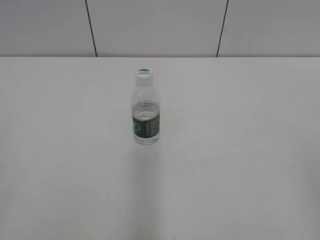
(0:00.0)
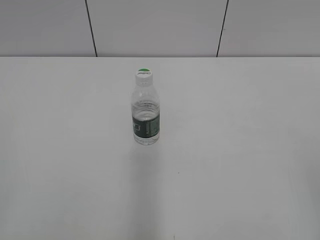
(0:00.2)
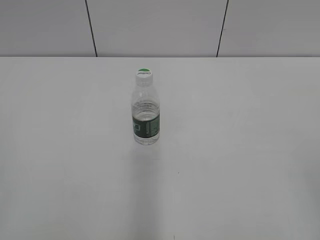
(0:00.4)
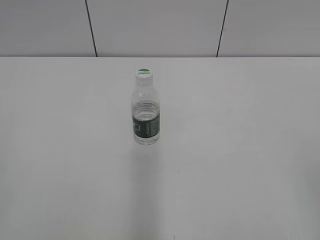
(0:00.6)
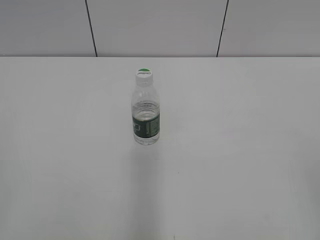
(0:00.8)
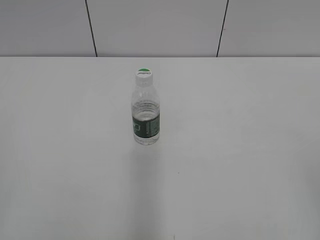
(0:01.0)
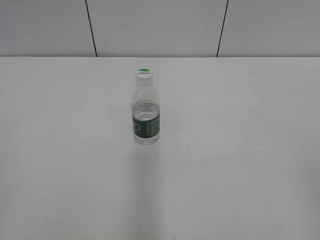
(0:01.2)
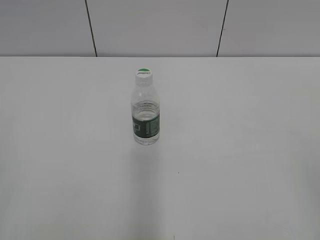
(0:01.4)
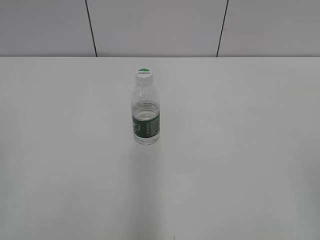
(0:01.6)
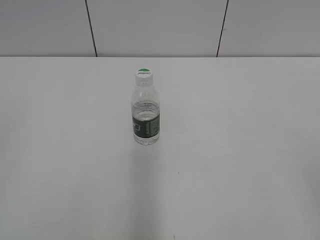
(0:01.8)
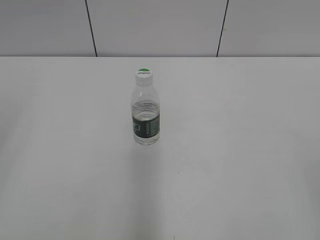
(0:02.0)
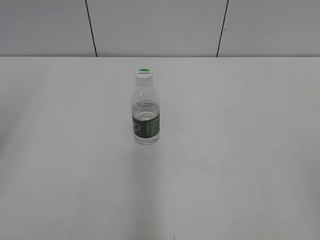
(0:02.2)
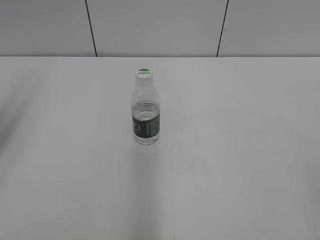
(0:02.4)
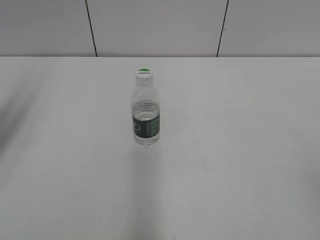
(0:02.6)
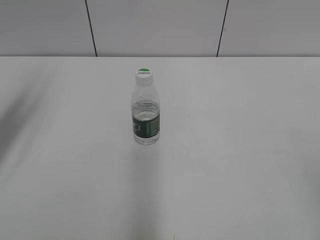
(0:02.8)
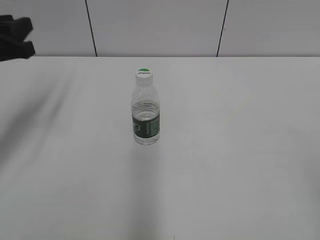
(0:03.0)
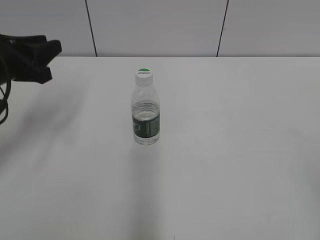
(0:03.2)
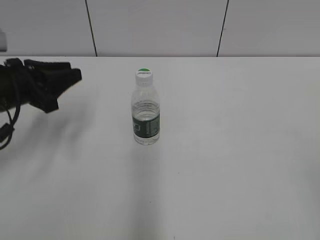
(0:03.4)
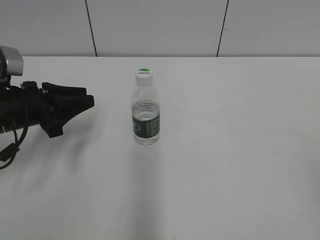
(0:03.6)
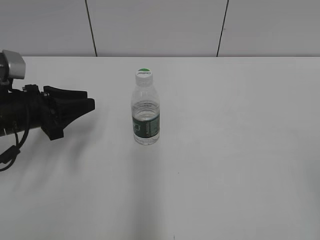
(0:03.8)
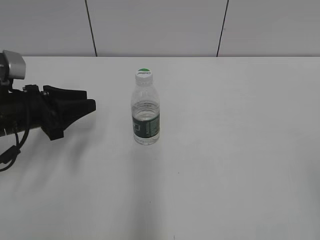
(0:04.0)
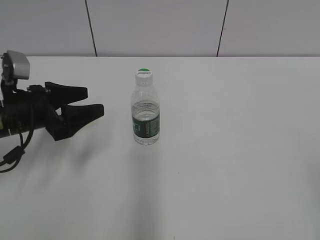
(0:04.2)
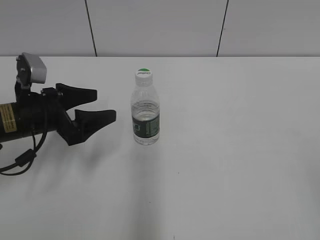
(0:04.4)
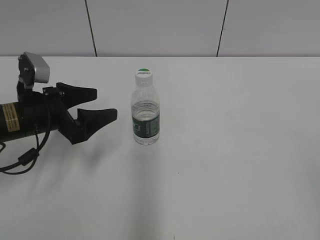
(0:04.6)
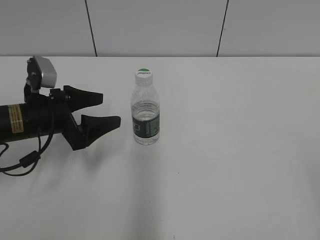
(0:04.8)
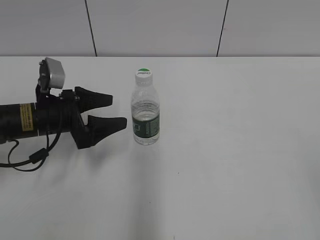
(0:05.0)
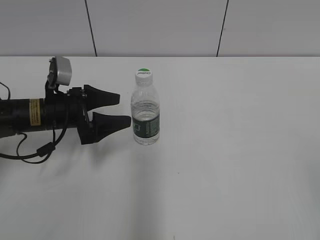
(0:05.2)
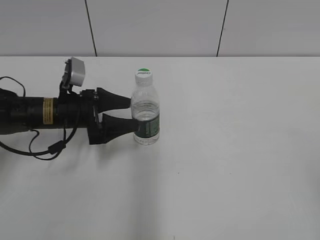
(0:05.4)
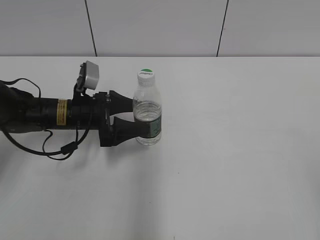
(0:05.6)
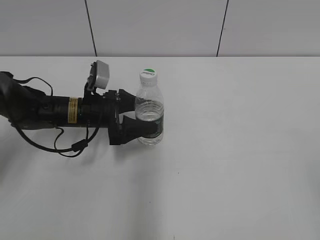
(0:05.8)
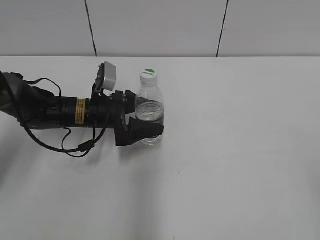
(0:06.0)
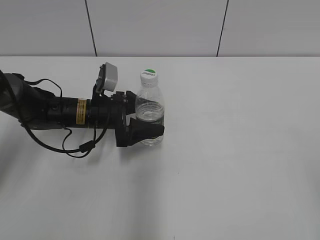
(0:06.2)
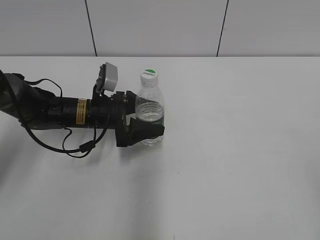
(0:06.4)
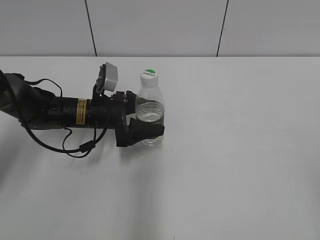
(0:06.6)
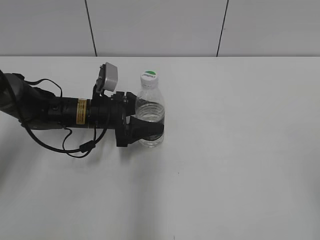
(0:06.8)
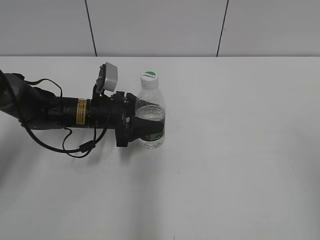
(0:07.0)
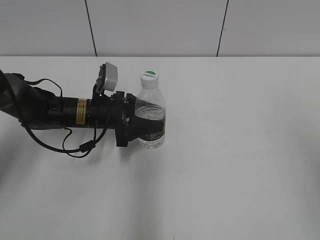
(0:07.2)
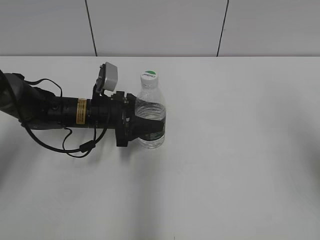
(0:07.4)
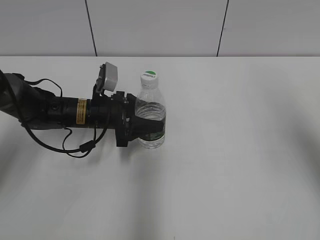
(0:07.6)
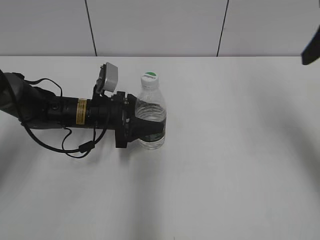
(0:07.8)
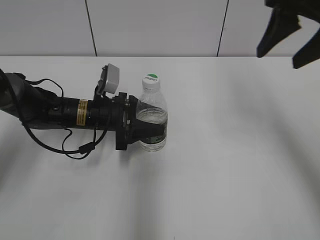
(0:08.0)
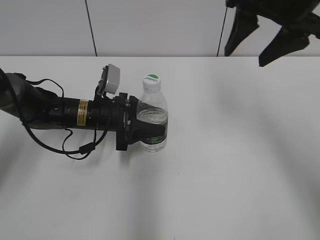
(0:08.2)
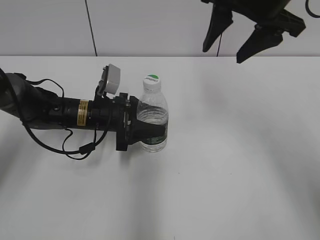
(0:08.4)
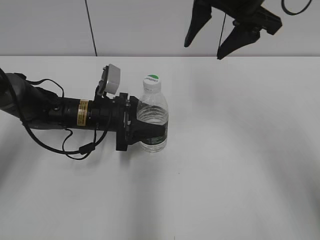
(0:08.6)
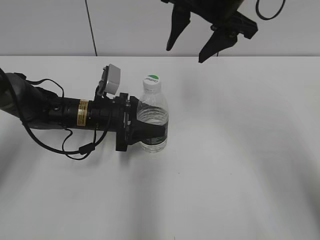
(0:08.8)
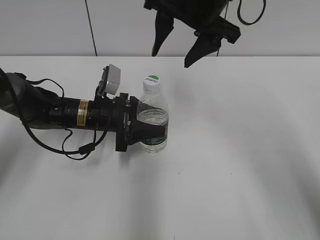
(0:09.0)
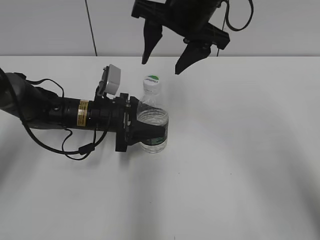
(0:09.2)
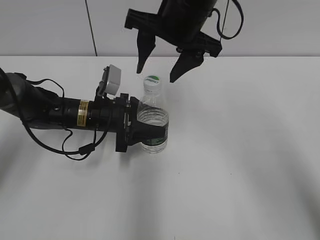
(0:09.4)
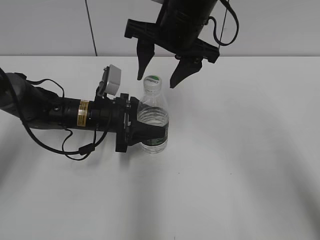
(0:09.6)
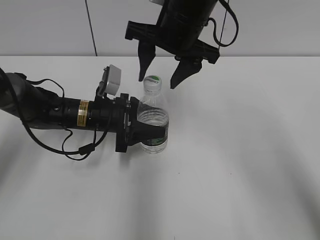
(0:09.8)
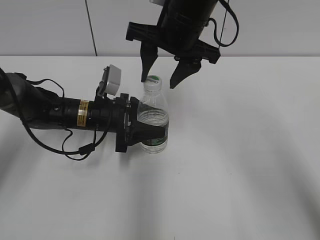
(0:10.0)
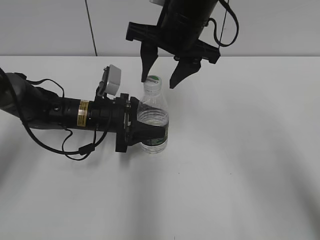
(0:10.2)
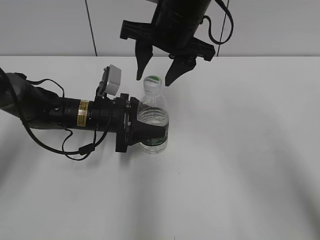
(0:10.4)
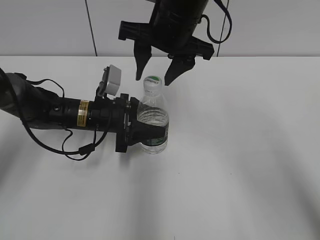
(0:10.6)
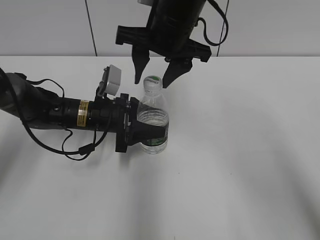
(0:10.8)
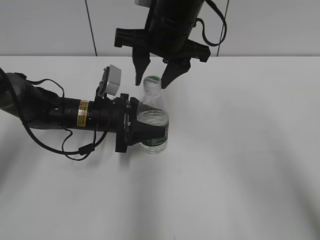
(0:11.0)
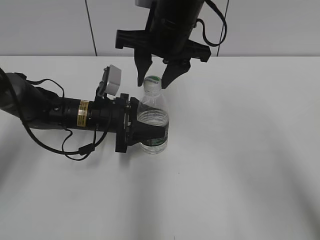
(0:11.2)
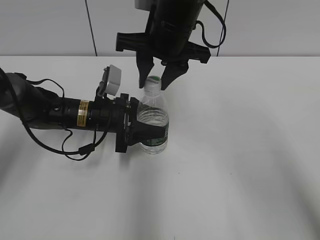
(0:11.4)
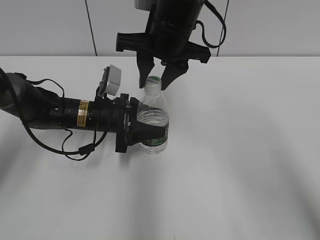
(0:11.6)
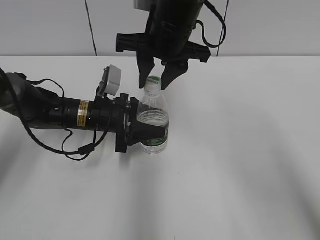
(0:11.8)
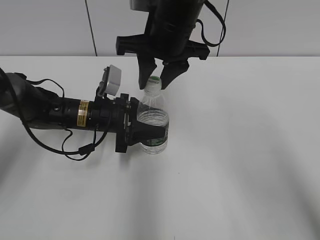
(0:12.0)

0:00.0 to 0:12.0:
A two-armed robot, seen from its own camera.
Step, 0:00.0 to 0:07.6: Grasp the bottle and move it to the center of the table with the left gripper.
0:01.6 to 0:03.0: The left gripper travels forward by roughly 30 cm.
0:03.0 to 0:04.4: The left gripper moves downward and to the right, about 10 cm, and opens its fingers.
0:04.4 to 0:06.0: The left gripper heads to the right, forward and downward, covering approximately 10 cm.
0:06.0 to 0:07.6: The right gripper goes about 20 cm forward; the left gripper closes.
0:07.6 to 0:09.0: The right gripper moves to the left and forward, some 25 cm.
0:09.0 to 0:10.4: The right gripper moves roughly 5 cm.
0:10.4 to 0:12.0: The right gripper closes.

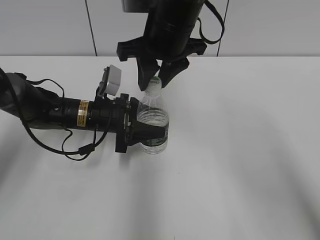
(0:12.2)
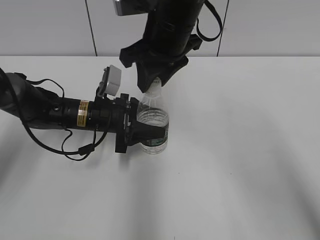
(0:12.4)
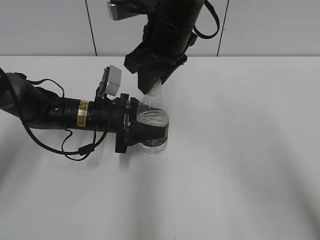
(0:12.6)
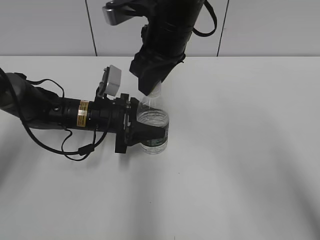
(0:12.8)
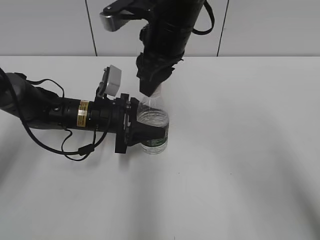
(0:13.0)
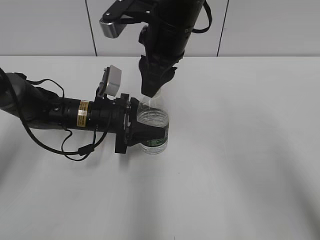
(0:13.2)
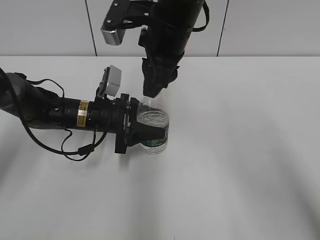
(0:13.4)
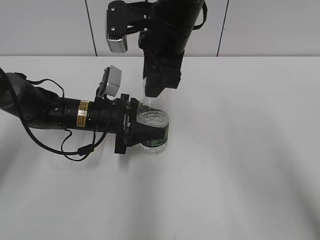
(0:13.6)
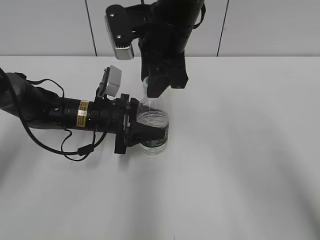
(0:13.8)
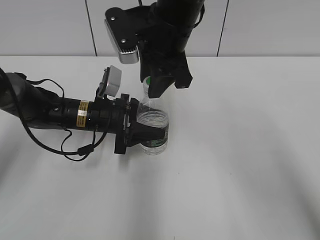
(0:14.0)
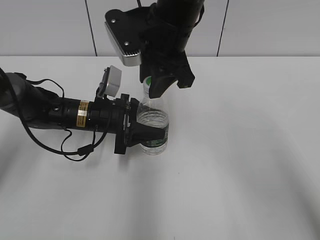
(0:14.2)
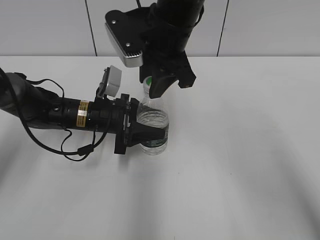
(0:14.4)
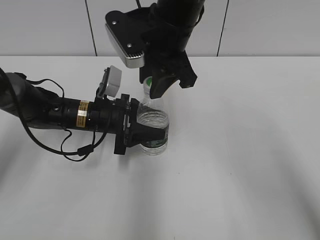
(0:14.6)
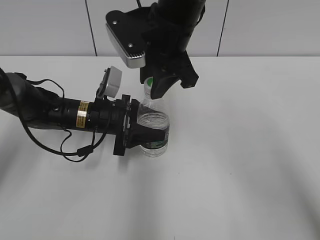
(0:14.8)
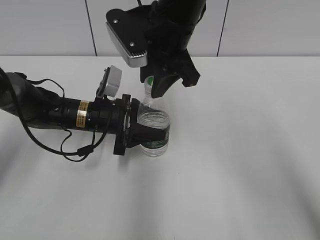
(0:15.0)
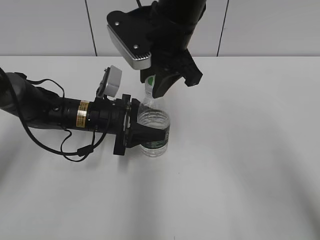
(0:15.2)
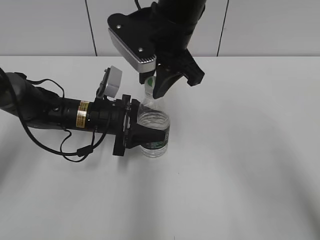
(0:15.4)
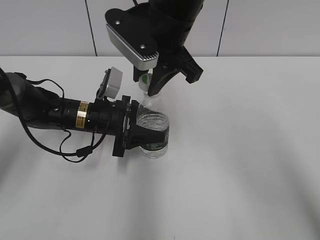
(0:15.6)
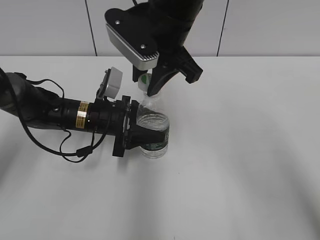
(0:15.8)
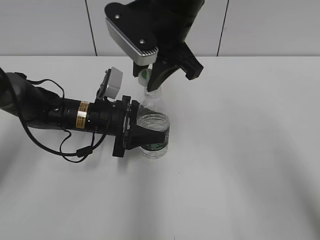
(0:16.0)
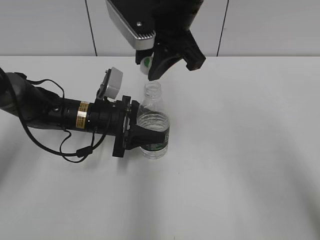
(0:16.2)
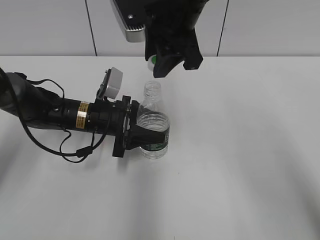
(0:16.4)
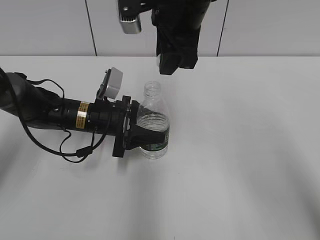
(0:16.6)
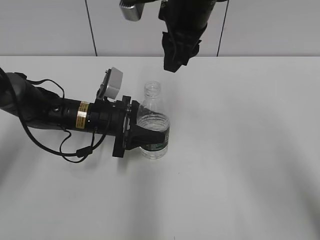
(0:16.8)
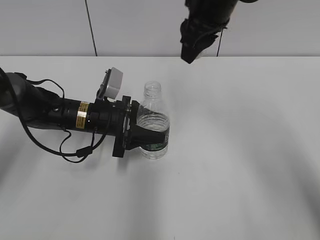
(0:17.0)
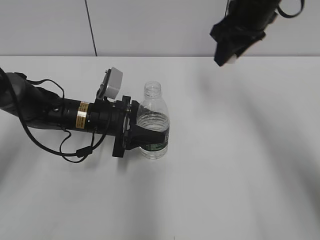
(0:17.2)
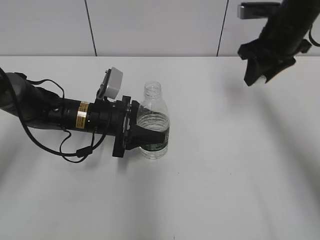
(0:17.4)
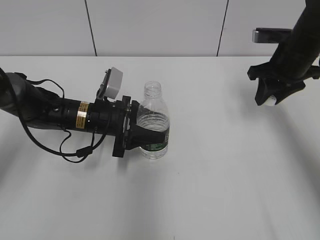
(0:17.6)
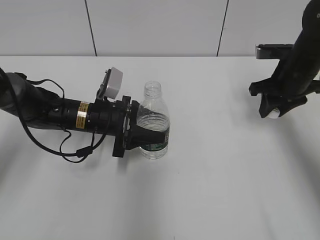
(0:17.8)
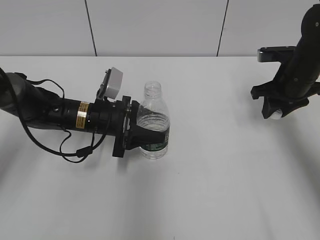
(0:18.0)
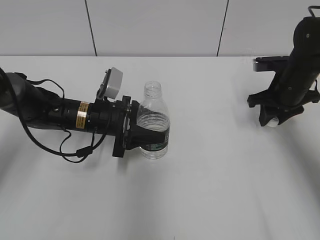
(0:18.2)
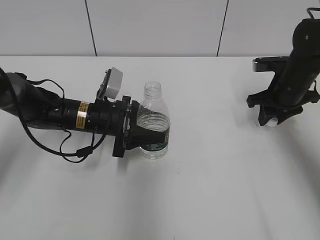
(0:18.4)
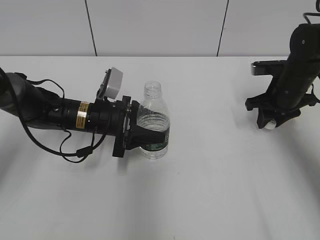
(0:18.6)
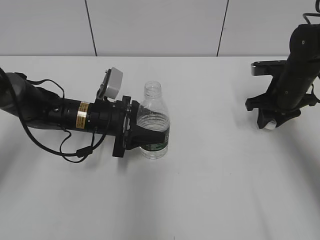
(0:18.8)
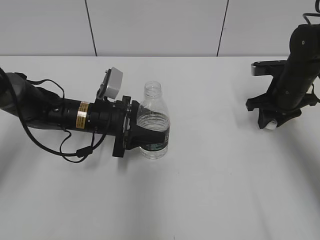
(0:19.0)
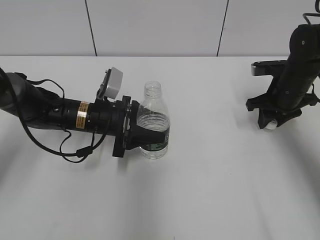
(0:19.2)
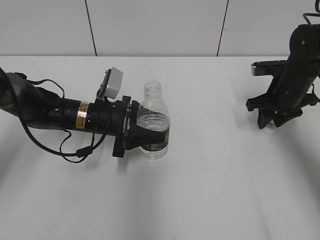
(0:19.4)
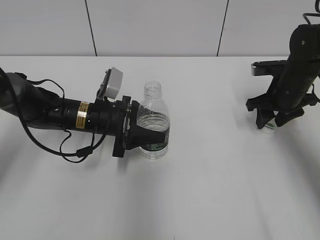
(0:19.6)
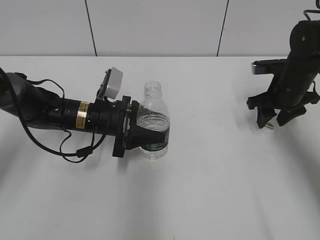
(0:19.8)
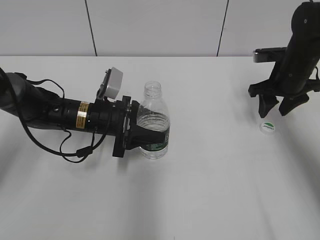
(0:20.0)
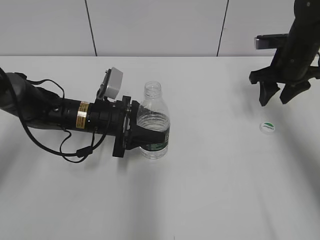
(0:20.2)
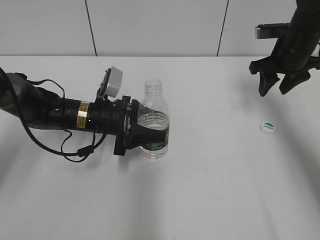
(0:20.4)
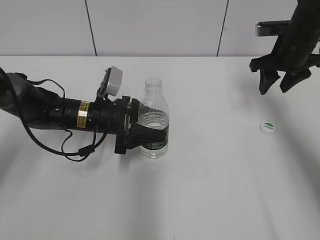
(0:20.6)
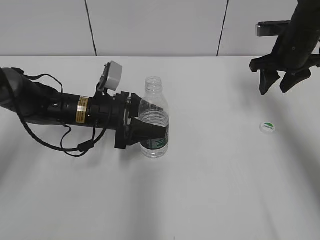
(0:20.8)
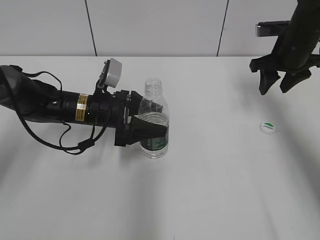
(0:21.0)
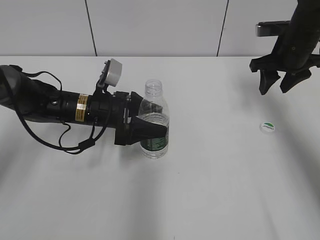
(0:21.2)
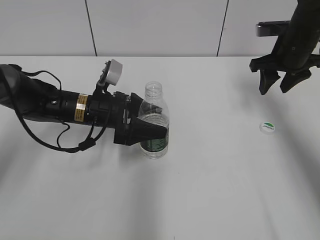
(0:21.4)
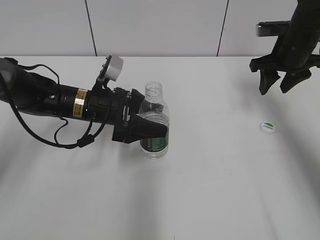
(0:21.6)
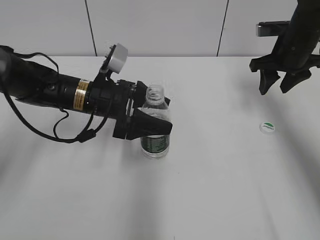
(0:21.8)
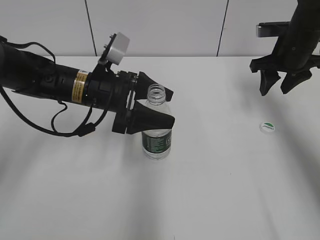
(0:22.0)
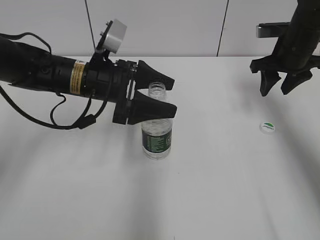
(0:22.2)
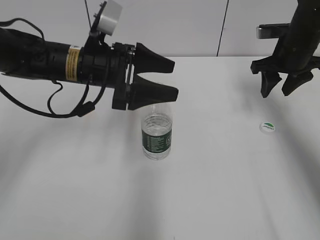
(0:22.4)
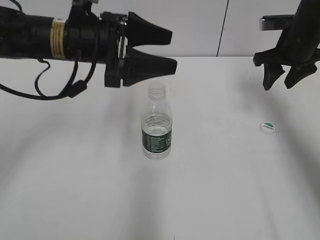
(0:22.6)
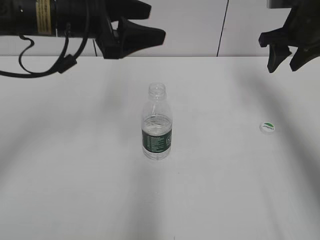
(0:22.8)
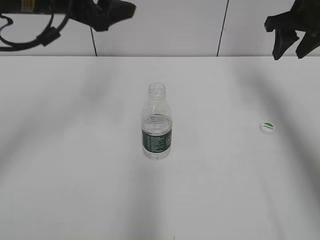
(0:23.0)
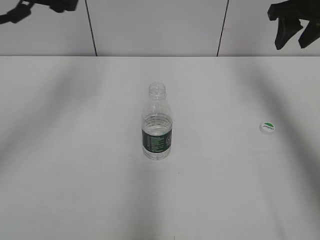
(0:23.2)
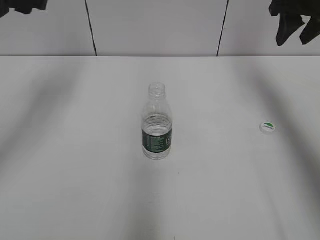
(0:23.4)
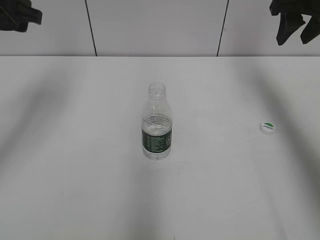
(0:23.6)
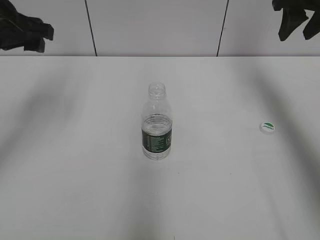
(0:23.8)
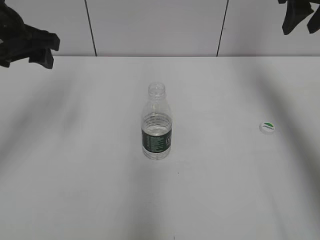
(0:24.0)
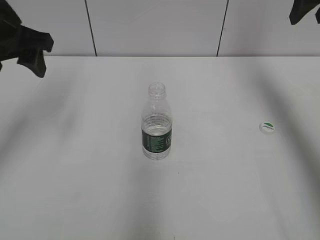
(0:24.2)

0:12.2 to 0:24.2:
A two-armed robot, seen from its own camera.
Step, 0:12.2 to 0:16.2: Unscrew the bottle cap with the right gripper while holding the bottle with the left gripper.
Step, 0:16.6 to 0:19.6: Place the bottle cap on the table with the right gripper.
Step, 0:20.0 to 0:22.6: Place the bottle on the table with the left gripper.
0:13.8 to 0:15.2: The grippers make only small movements.
0:16.6 to 0:18.2: The right gripper goes roughly 30 cm to the right and downward.
0:18.2 to 0:19.8: The right gripper opens.
0:19.8 to 0:21.2: The left gripper opens up. The right gripper moves upward, approximately 5 cm.
0:21.2 to 0:22.6: The left gripper moves upward, approximately 15 cm.
0:22.6 to 0:24.2: The right gripper shifts some 15 cm upward. Meanwhile the left gripper is displaced to the left and upward by about 15 cm.
